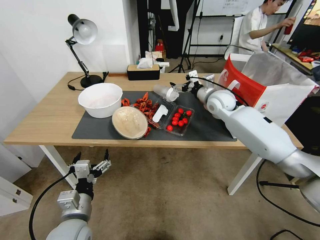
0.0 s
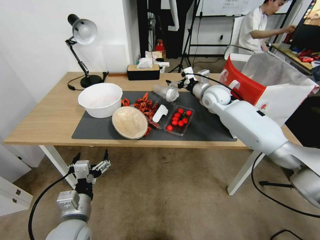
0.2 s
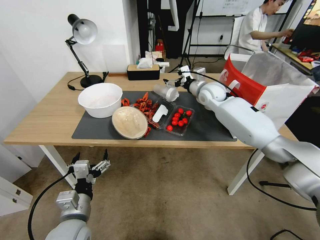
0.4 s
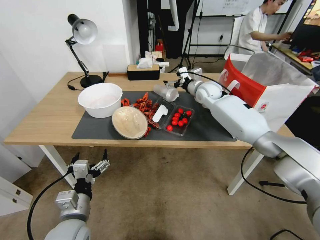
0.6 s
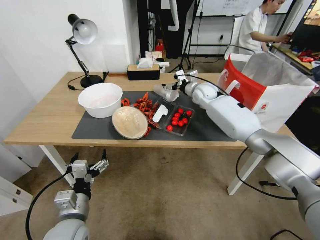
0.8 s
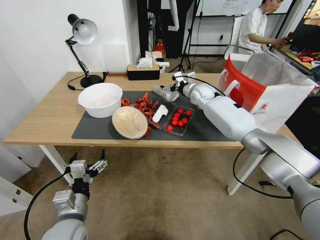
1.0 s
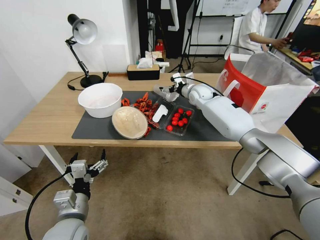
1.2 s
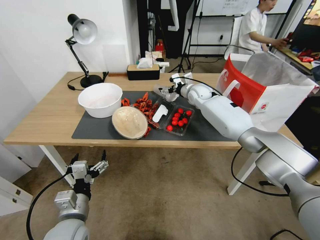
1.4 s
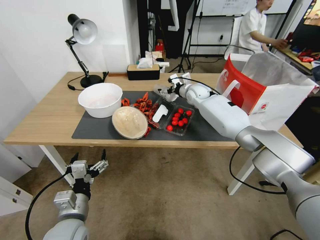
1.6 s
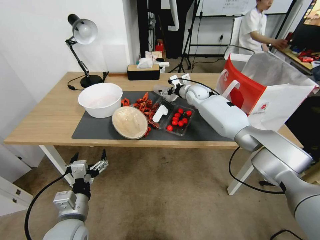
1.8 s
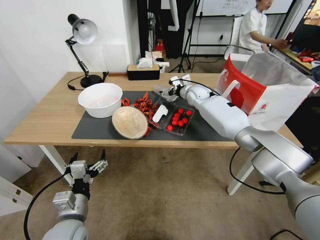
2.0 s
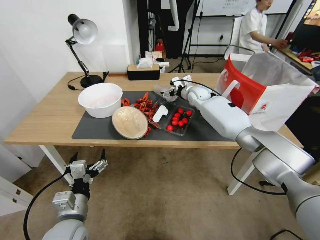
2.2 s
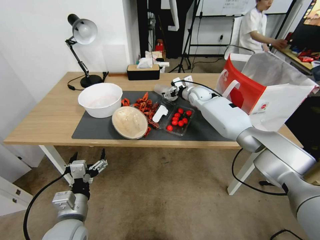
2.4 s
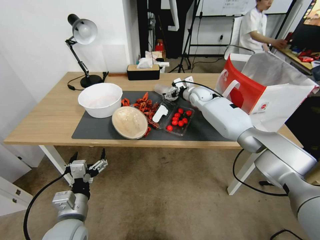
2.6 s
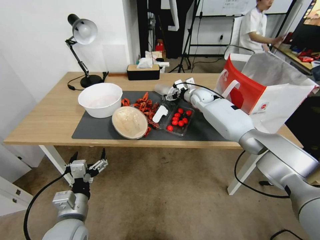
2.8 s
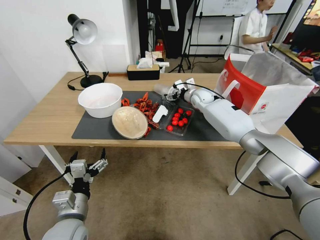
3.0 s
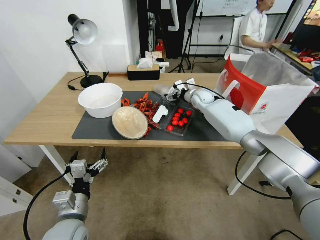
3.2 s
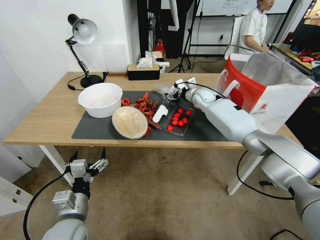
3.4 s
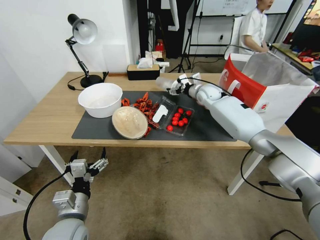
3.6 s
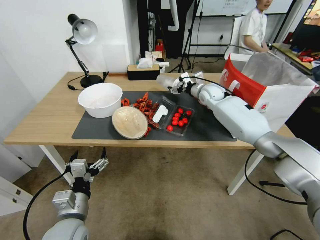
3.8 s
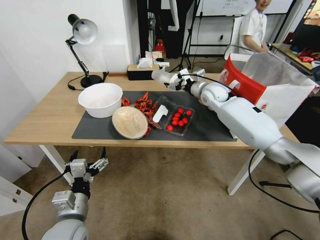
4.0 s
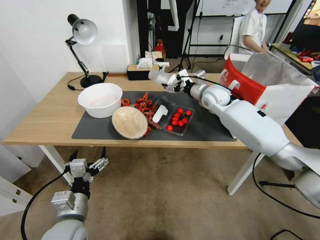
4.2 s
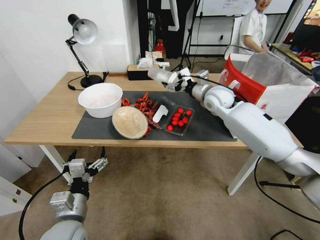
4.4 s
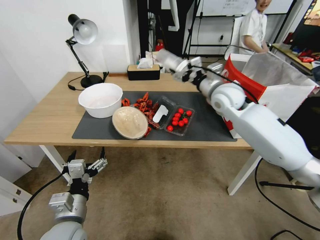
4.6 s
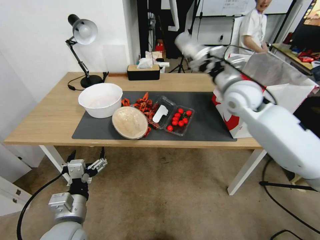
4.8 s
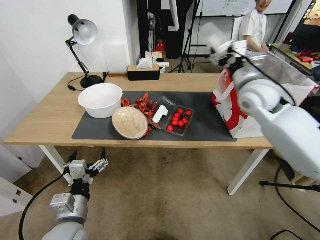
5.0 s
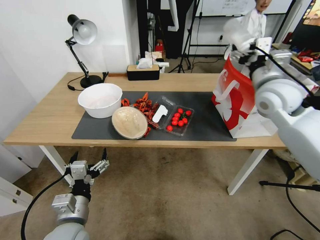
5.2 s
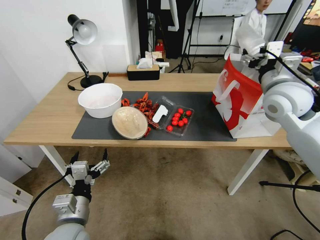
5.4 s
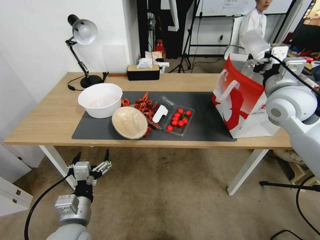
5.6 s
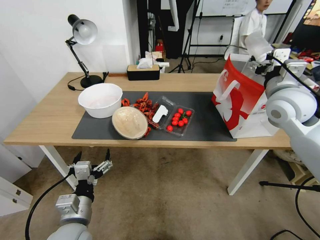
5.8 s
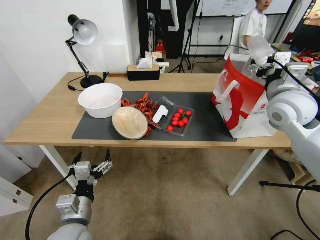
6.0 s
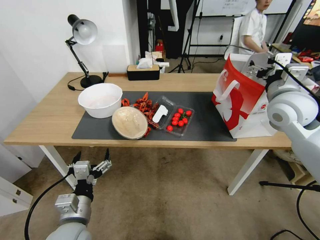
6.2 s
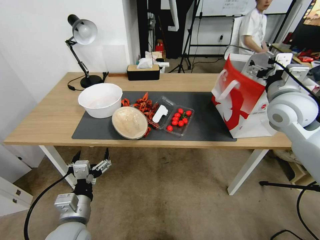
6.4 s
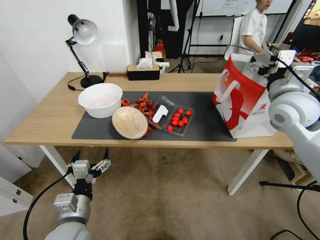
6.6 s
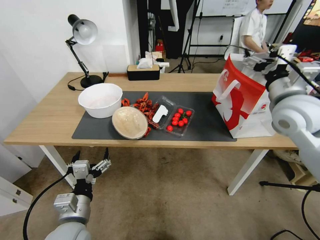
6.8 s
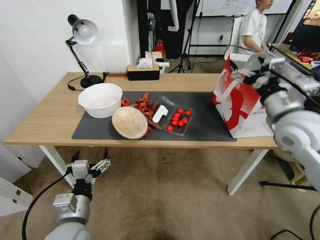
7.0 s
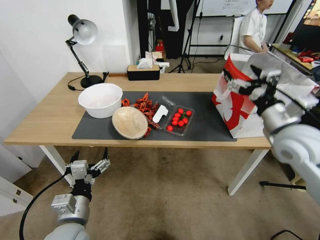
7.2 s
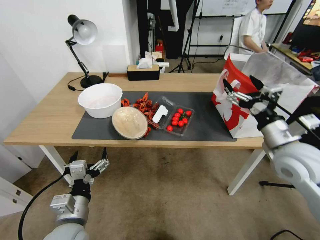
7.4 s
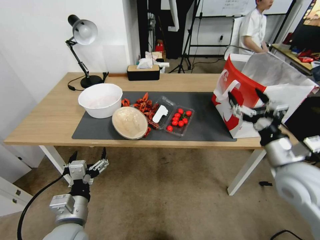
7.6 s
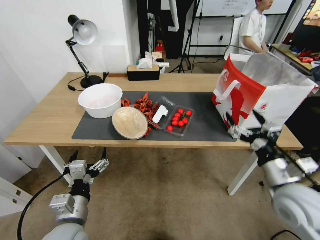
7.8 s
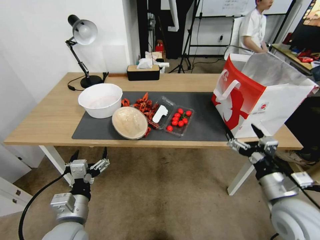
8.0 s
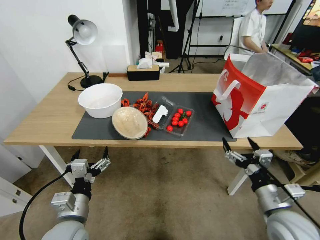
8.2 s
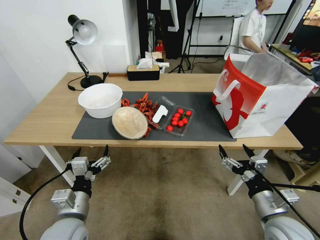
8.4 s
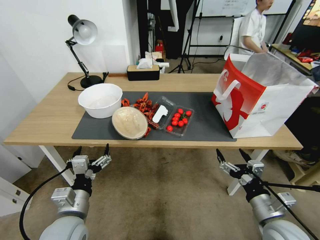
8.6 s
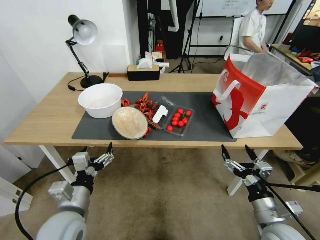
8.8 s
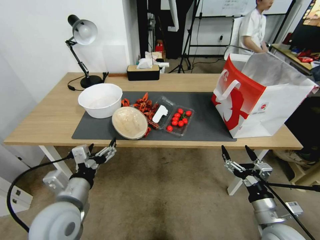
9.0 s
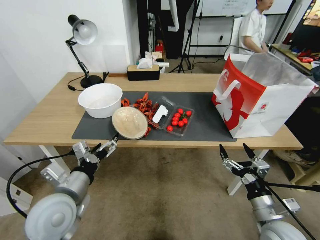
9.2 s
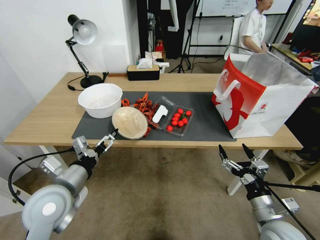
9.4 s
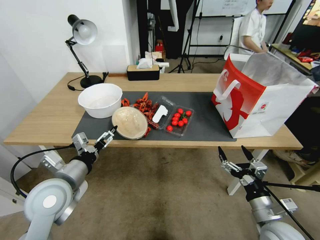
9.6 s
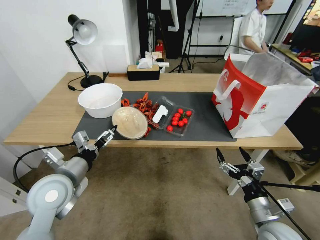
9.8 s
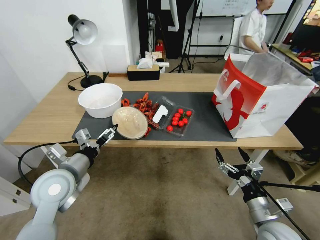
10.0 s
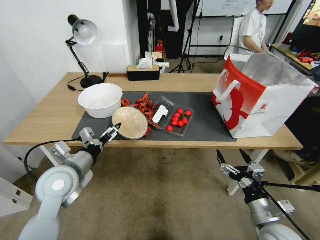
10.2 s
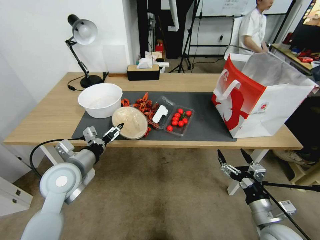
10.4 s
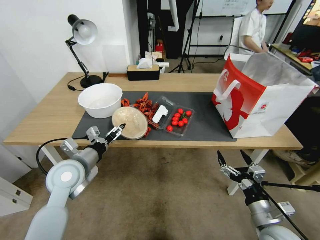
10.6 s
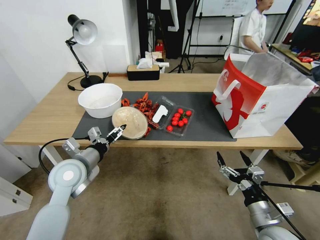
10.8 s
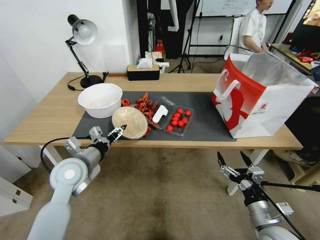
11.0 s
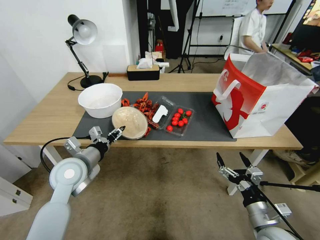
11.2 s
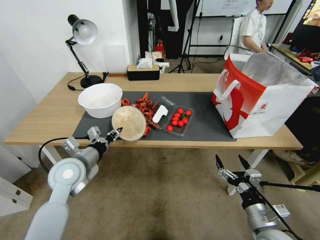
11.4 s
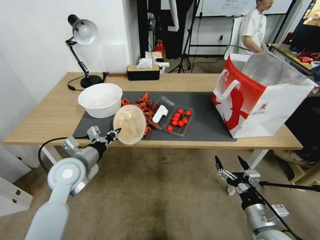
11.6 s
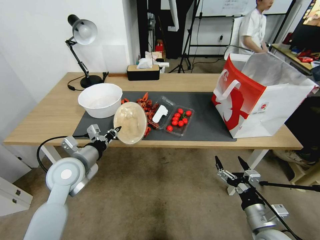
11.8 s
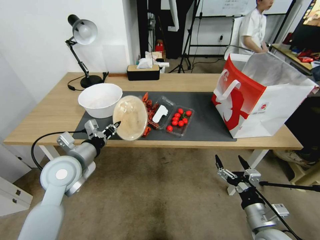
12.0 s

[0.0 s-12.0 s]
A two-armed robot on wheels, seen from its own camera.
0.0 to 1.6 s: The right gripper shifts roughly 10 cm forward and to the left.
1.6 to 3.0 s: There are only small adjustments of the grippers.
3.0 to 4.4 s: The right gripper shifts approximately 15 cm backward and upward.
4.4 to 6.0 s: The right gripper shifts some 20 cm backward, to the right and upward.
6.0 to 7.6 s: The right gripper shifts some 20 cm backward and downward.
7.6 to 9.0 s: The left gripper moves upward, approximately 5 cm. The right gripper travels downward and backward by approximately 15 cm.
9.0 to 10.4 s: The left gripper is displaced forward by roughly 10 cm.
10.4 to 12.0 s: The left gripper closes.

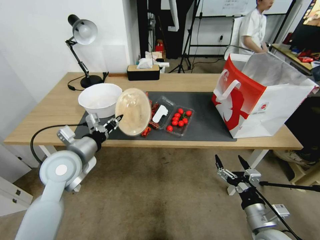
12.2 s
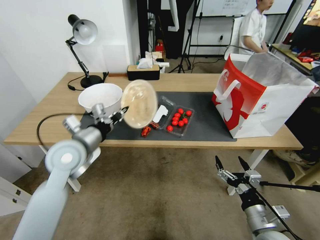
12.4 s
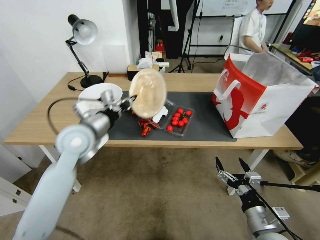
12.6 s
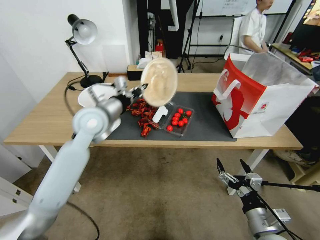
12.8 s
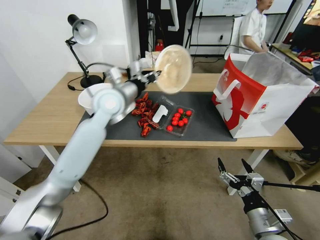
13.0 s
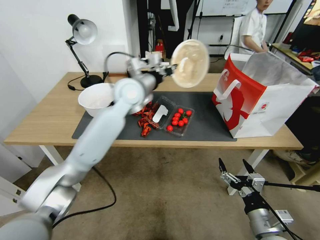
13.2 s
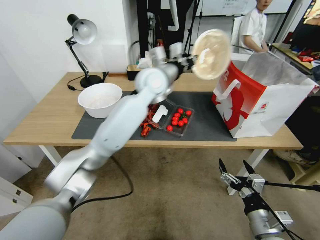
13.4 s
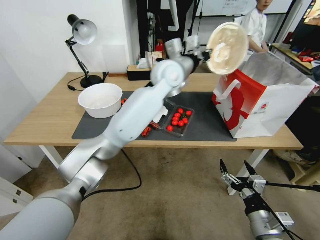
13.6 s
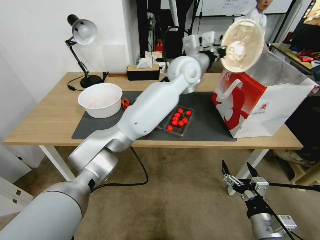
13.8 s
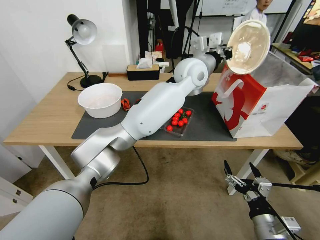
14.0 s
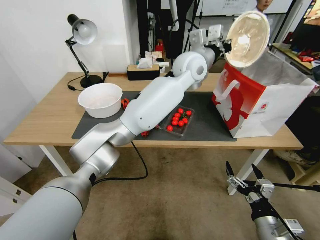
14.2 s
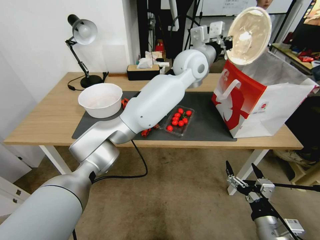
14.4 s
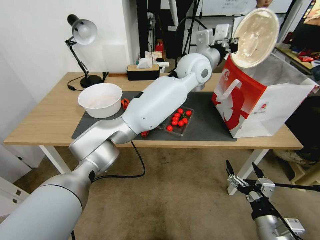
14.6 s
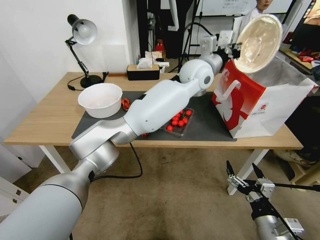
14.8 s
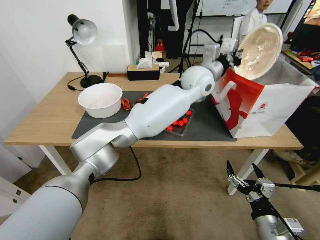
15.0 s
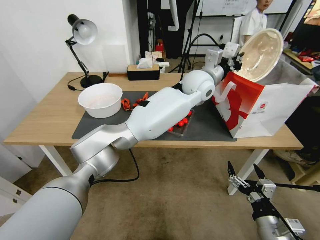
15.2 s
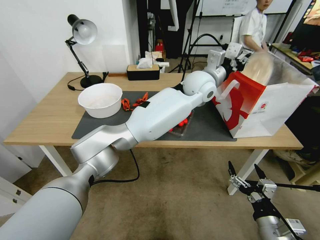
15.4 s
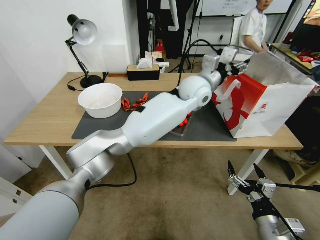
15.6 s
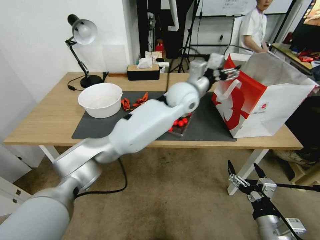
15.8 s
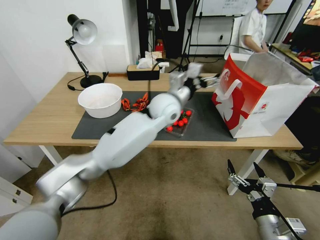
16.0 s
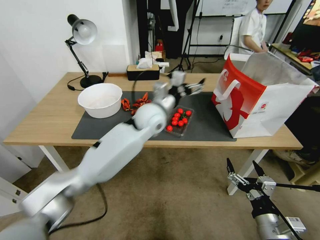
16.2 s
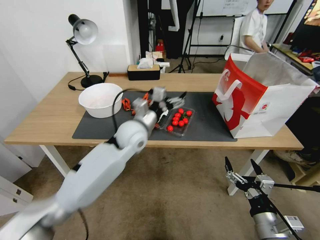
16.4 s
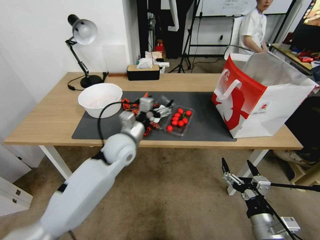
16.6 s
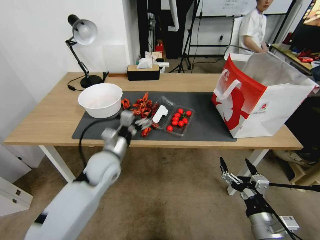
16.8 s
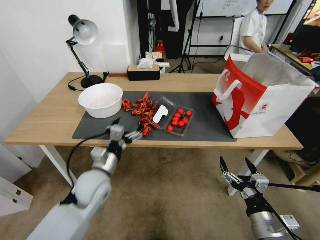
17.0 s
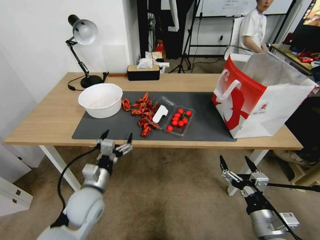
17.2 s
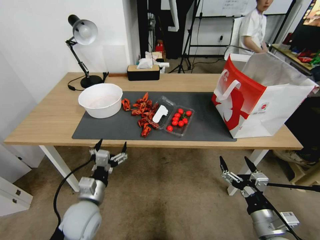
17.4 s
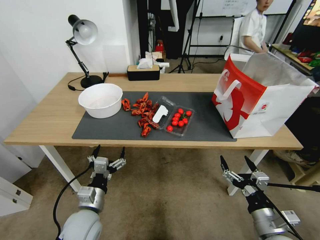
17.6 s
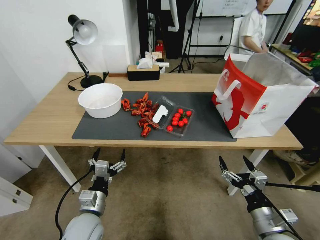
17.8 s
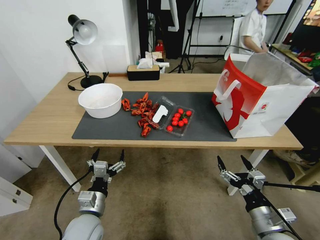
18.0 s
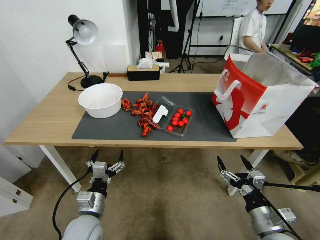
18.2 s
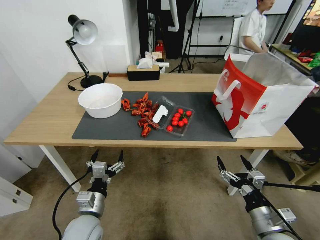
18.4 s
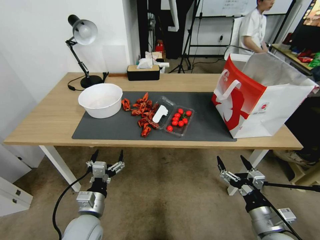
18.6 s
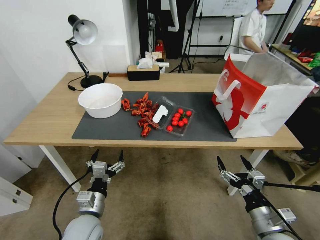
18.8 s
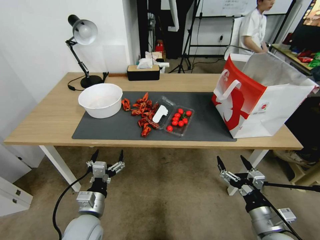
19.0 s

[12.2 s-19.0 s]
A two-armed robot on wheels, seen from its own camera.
12.2 to 13.6 s: The left gripper goes approximately 40 cm to the right, forward and upward.
13.6 to 15.0 s: The left gripper heads to the right, covering approximately 10 cm.
15.0 to 16.2 s: The left gripper shifts some 20 cm to the left, downward and backward, and opens.
16.2 to 17.6 s: The left gripper heads backward, downward and to the left, covering roughly 35 cm.
17.6 to 19.0 s: Both grippers stay about where they are.

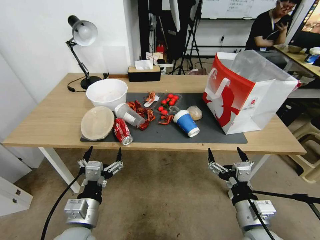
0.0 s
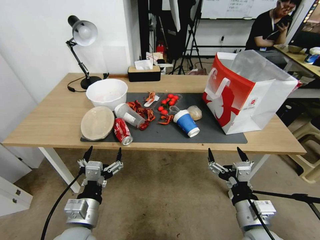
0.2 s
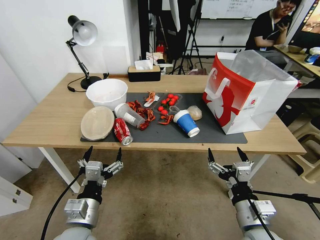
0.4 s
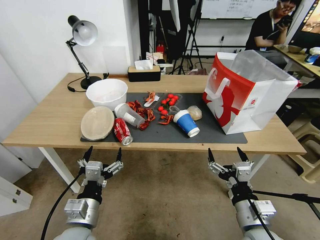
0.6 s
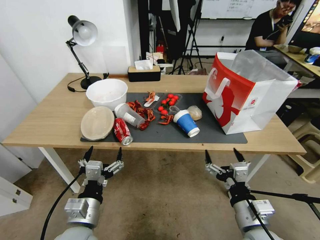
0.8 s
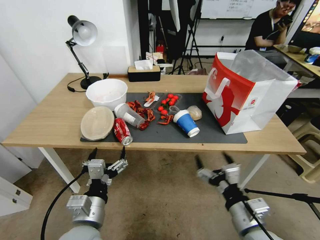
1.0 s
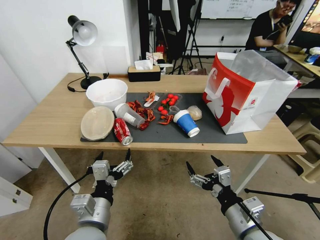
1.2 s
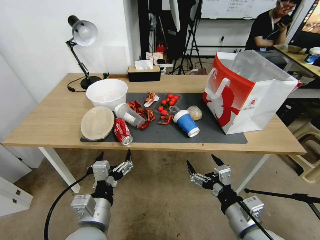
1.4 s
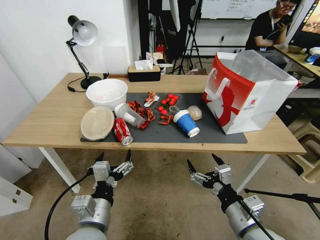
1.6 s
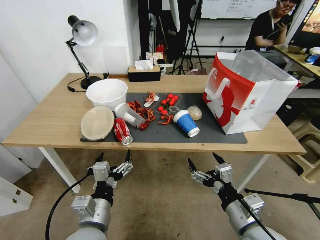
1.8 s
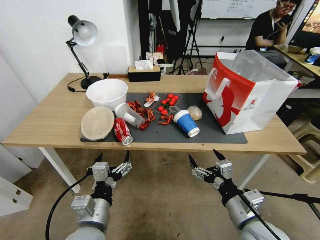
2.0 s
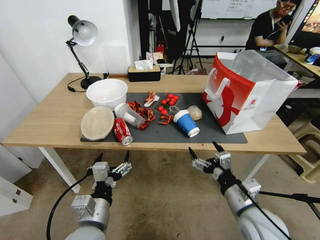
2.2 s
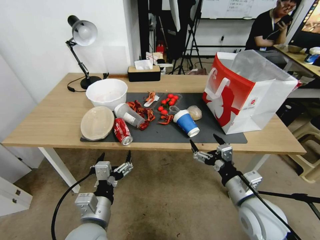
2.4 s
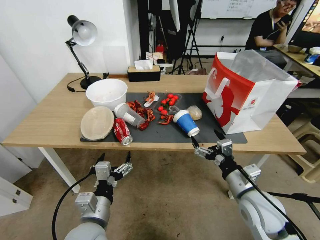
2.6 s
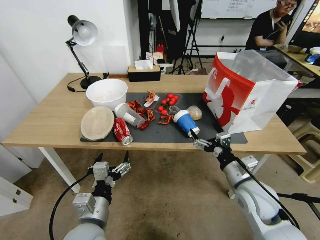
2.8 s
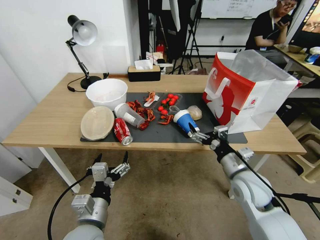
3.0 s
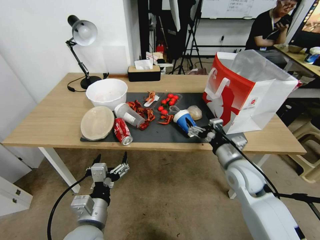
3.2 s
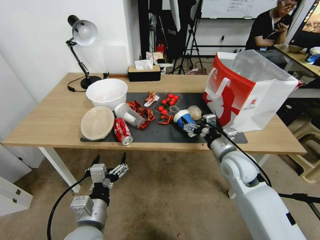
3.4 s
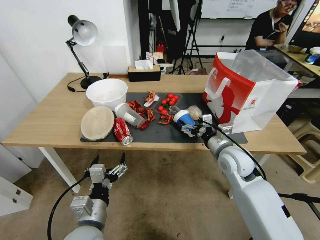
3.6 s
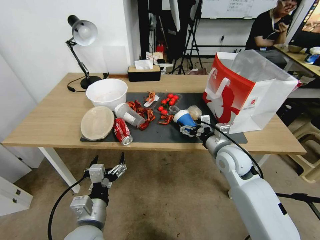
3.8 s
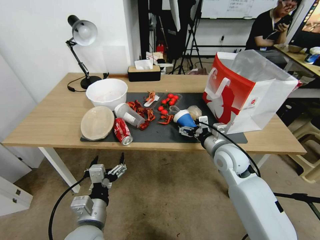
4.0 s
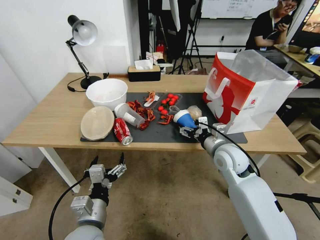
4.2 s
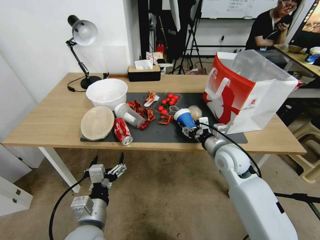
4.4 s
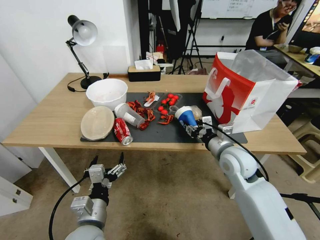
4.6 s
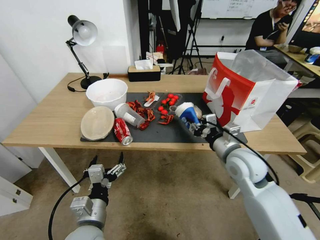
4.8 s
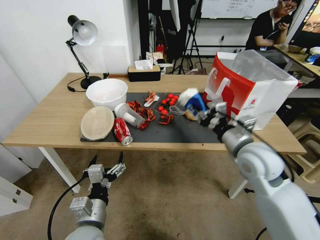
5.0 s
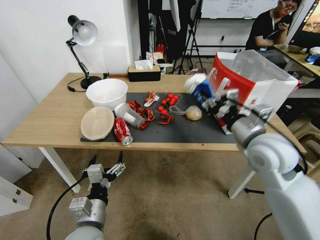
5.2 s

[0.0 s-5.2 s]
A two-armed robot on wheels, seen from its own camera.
1.8 to 3.4 s: The right gripper shifts about 20 cm forward.
3.4 to 5.2 s: The right gripper shifts about 15 cm upward, and closes up.
